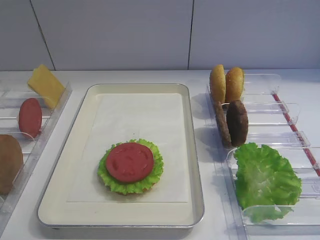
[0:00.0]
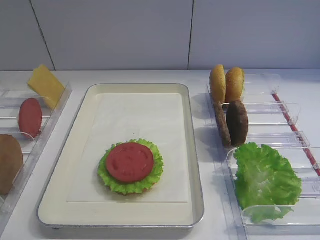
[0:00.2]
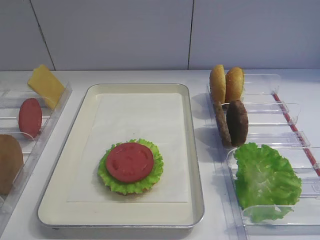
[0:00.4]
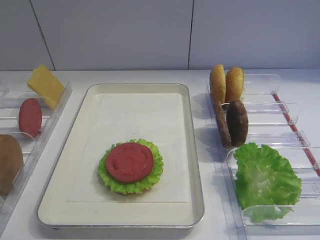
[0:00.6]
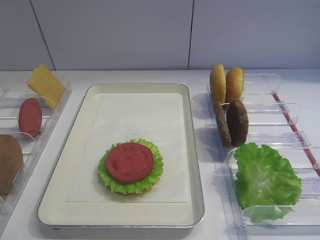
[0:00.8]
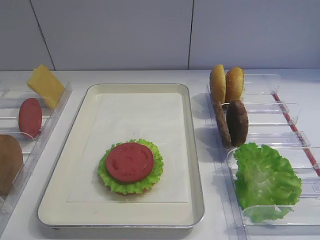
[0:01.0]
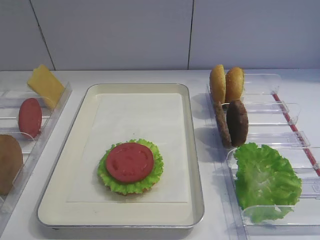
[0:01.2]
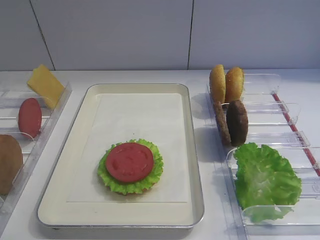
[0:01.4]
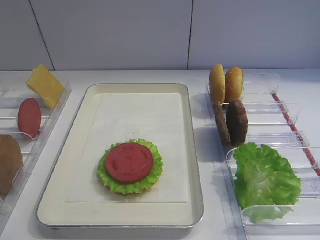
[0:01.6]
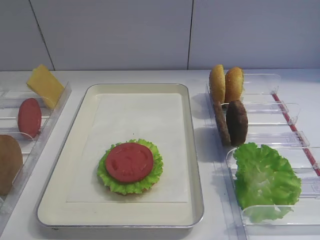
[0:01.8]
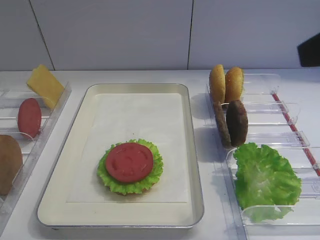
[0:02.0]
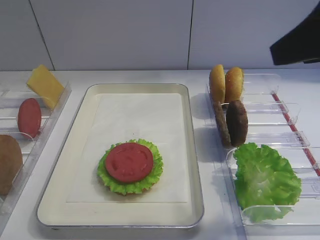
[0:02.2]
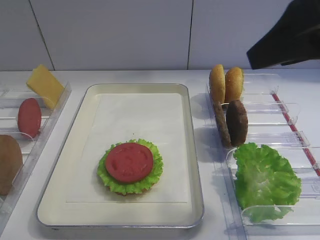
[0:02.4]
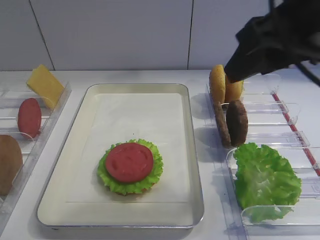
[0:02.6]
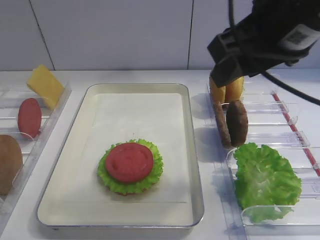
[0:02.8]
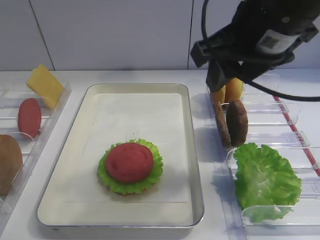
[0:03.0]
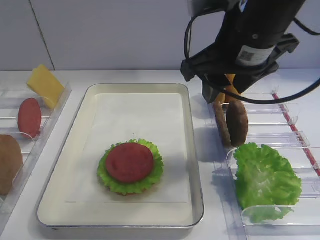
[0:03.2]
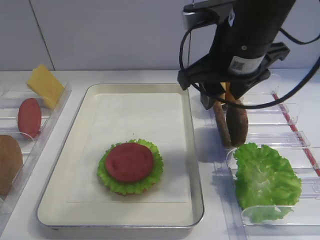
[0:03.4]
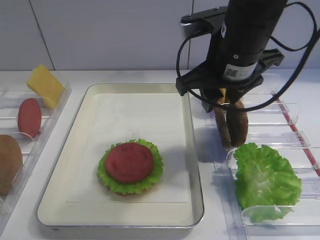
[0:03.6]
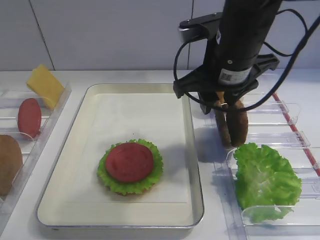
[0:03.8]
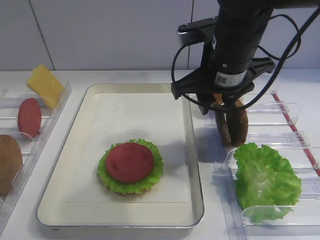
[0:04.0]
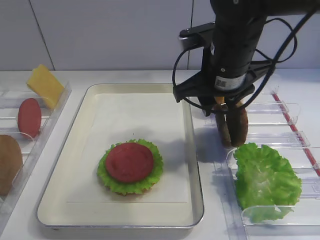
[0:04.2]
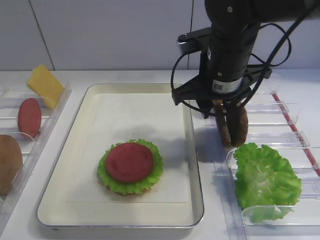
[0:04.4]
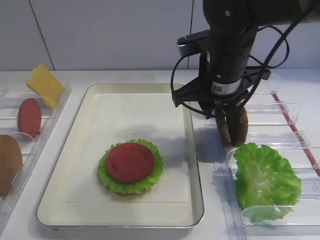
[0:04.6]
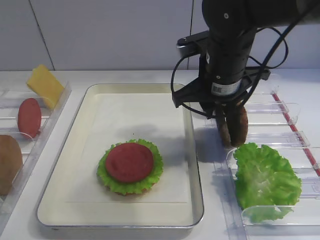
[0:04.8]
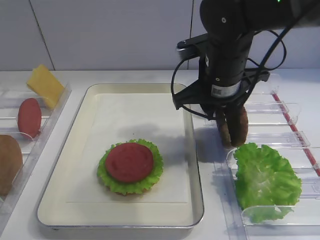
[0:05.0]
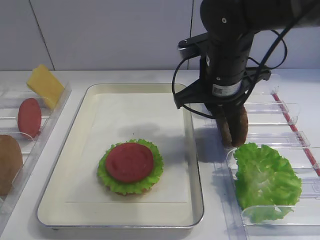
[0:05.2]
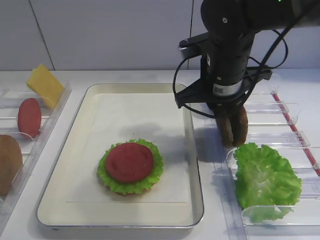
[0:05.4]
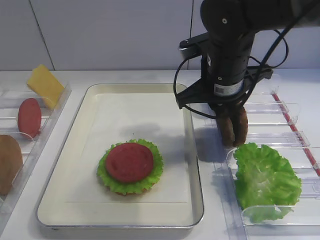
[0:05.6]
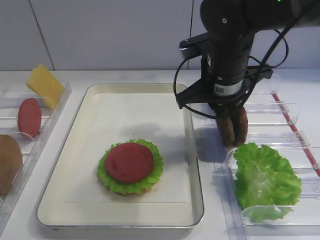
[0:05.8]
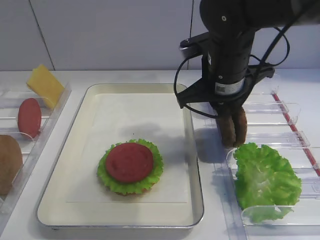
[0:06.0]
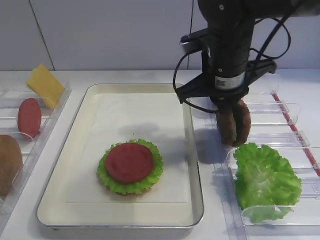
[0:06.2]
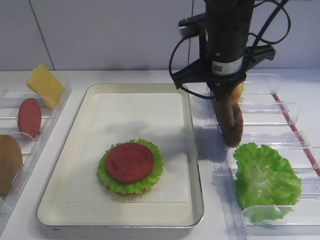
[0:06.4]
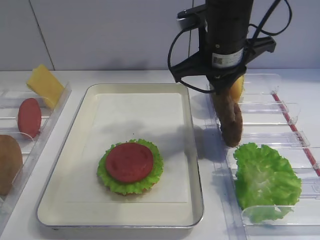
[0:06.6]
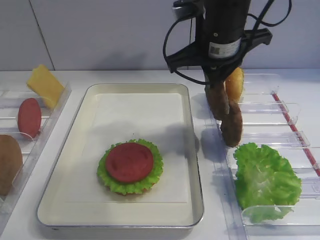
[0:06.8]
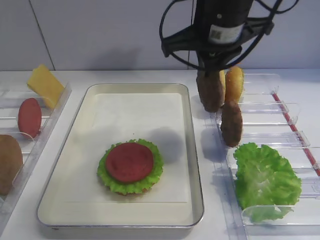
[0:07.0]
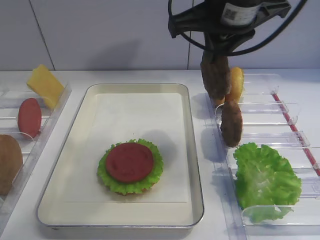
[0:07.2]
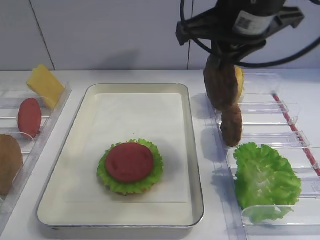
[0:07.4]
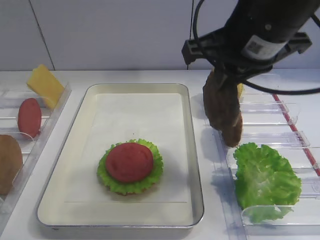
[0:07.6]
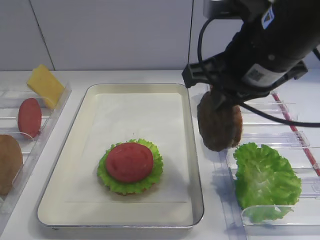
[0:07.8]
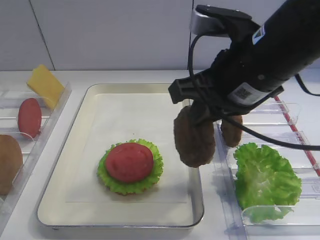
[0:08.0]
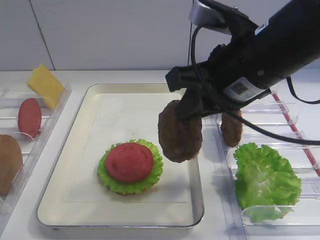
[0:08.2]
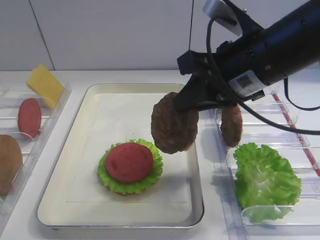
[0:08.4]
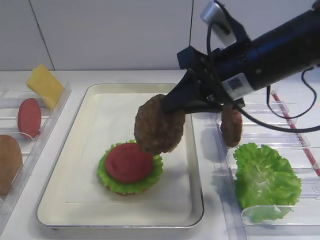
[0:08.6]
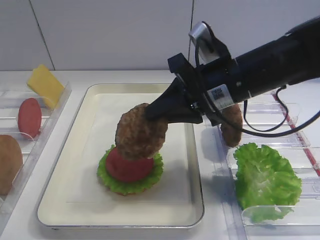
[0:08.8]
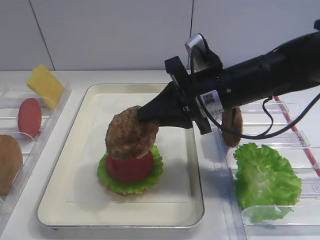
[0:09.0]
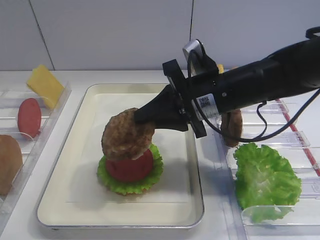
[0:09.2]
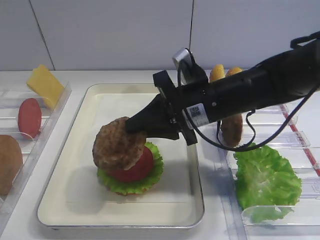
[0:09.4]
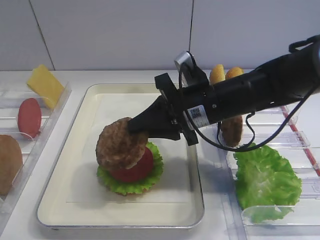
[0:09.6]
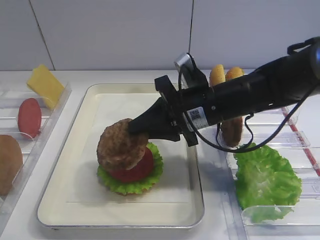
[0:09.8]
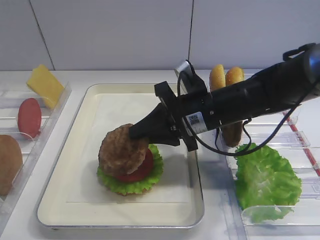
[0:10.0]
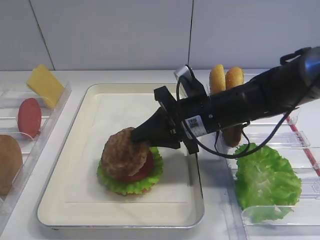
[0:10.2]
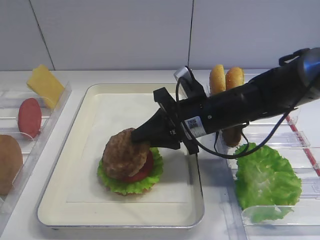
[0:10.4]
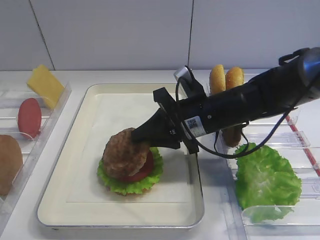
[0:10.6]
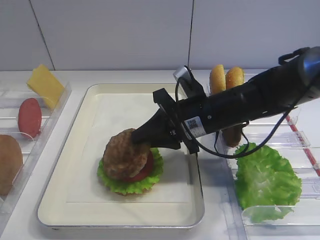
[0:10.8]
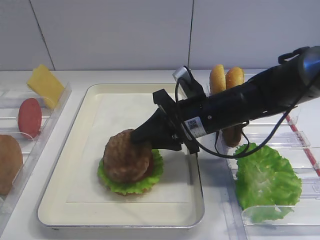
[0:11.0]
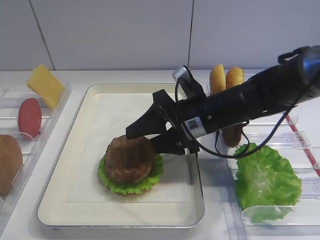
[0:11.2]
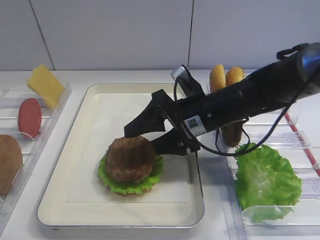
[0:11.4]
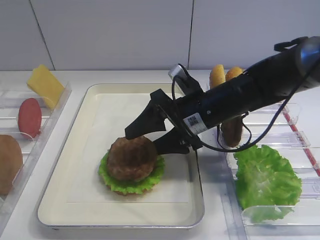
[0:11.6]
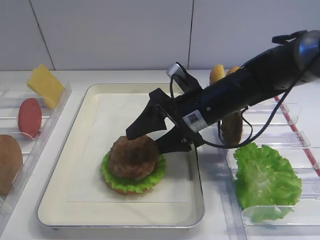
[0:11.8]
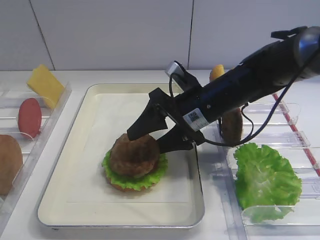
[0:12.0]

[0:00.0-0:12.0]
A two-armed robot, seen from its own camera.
Step, 0:00.0 to 0:06.2: Pick up the cutlet with the right gripper.
0:01.6 to 0:03.0: The right gripper goes about 25 cm forward and to the left.
0:03.0 to 0:04.4: The right gripper shifts about 15 cm downward and forward.
0:04.4 to 0:06.0: The right gripper closes up.
0:06.0 to 0:07.6: The right gripper travels upward and backward by about 10 cm.
0:07.6 to 0:09.0: The right gripper travels downward by roughly 10 cm.
0:09.0 to 0:10.4: The right gripper travels downward by roughly 5 cm.
0:10.4 to 0:12.0: The right gripper opens.

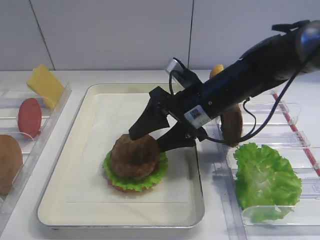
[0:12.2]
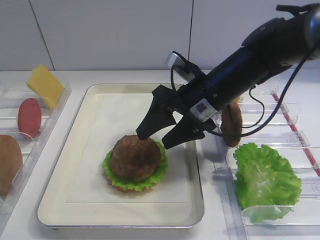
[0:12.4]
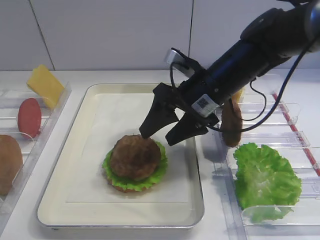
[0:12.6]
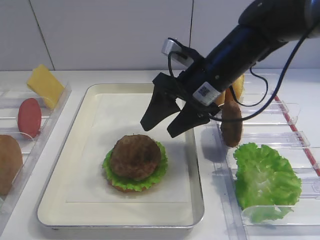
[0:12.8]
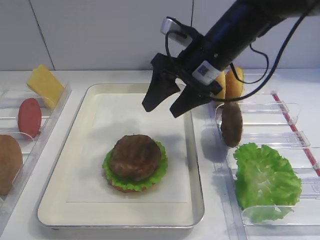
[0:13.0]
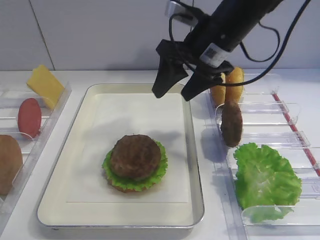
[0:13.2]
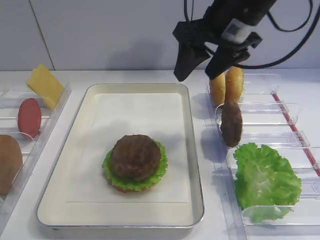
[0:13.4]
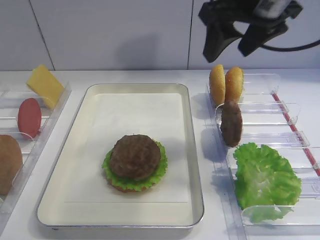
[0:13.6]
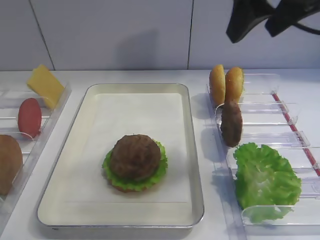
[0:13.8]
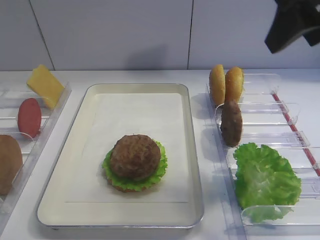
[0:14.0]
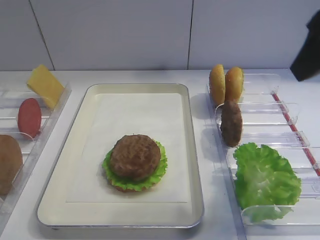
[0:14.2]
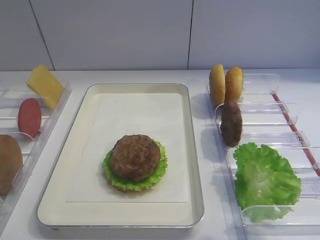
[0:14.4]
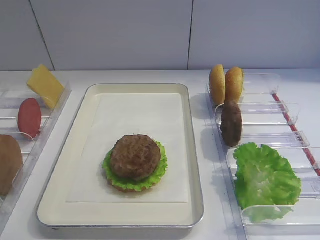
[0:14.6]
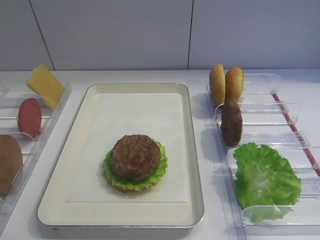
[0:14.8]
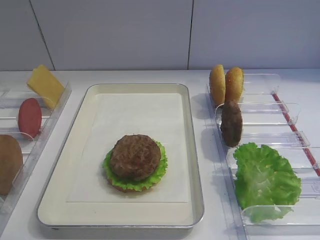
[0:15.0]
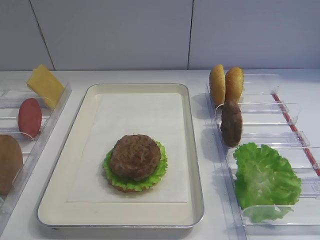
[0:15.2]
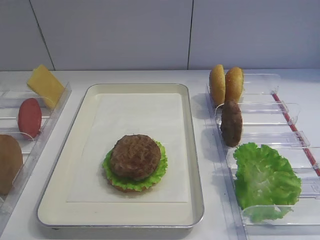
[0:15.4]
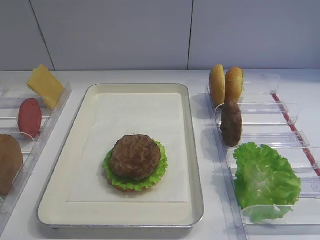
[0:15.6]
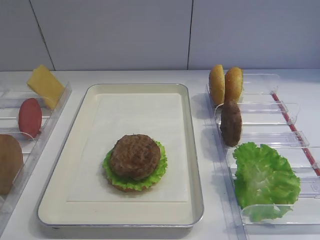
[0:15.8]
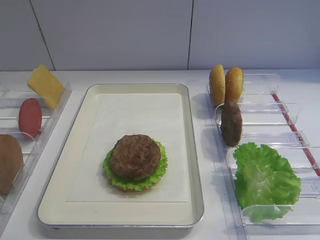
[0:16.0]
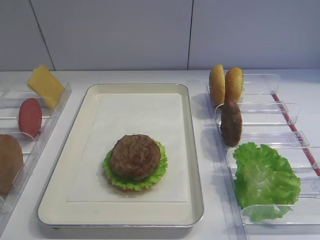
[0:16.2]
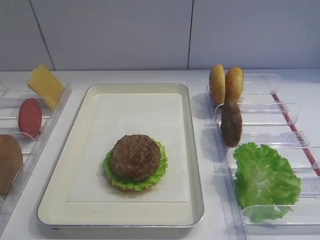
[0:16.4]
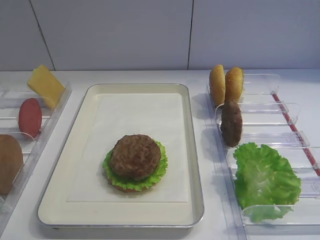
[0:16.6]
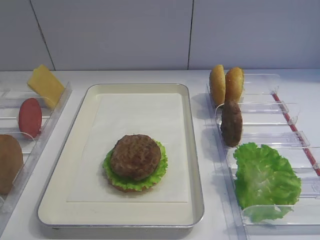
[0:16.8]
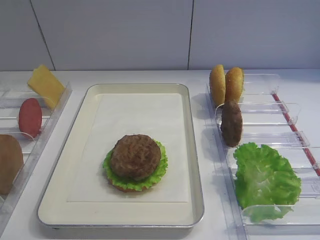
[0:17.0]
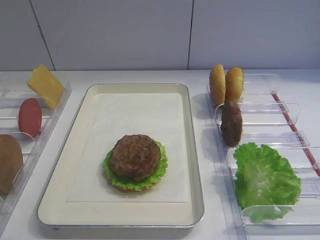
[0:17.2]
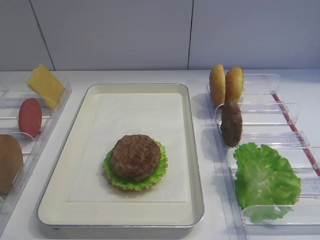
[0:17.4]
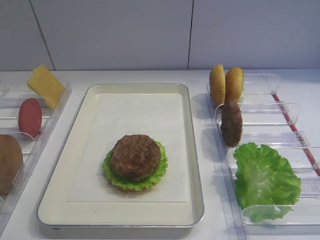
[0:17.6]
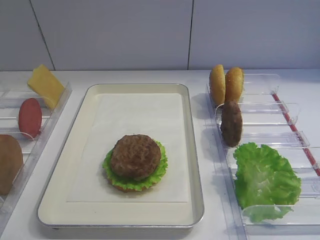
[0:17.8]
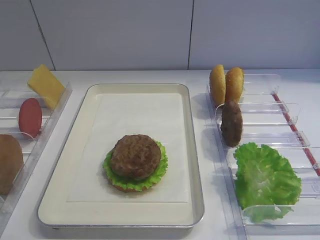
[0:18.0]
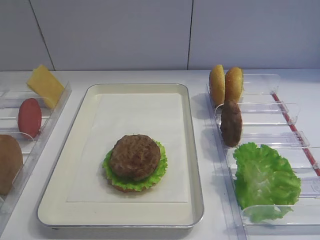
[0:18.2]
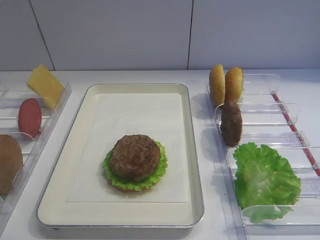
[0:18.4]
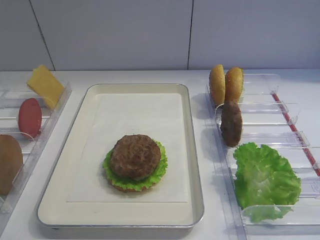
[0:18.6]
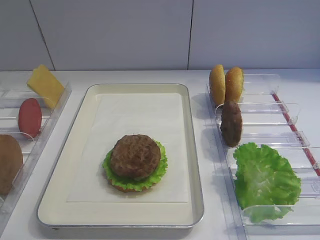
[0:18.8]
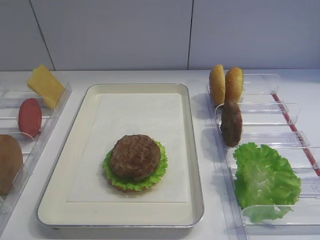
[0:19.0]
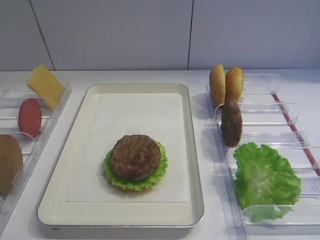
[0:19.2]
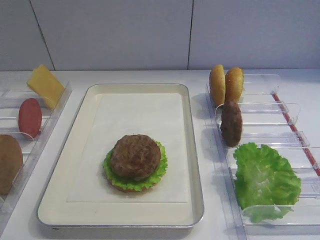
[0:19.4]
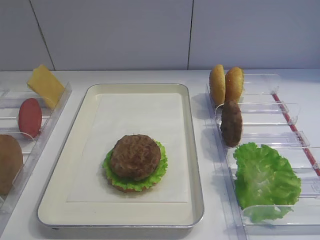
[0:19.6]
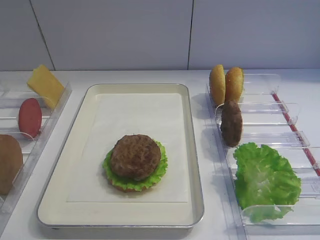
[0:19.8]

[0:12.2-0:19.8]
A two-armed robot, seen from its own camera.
0:12.2 to 0:13.8: The right gripper heads upward, covering some 20 cm.
0:13.8 to 0:15.2: The right gripper shifts some 25 cm backward and to the right, and closes.
0:16.8 to 0:19.8: Both grippers stay about where they are.

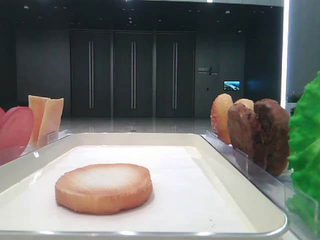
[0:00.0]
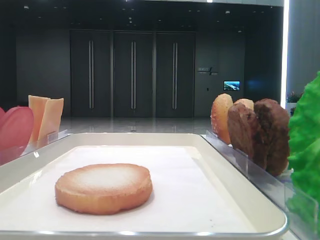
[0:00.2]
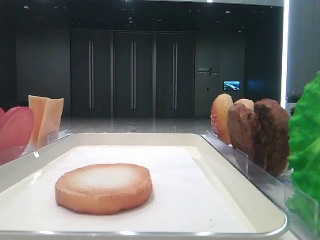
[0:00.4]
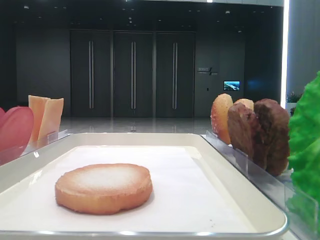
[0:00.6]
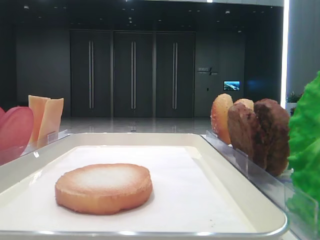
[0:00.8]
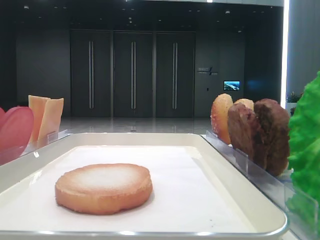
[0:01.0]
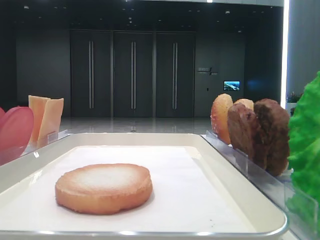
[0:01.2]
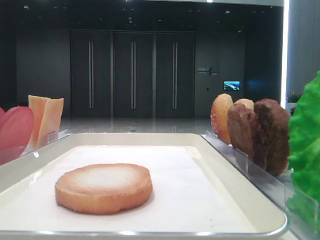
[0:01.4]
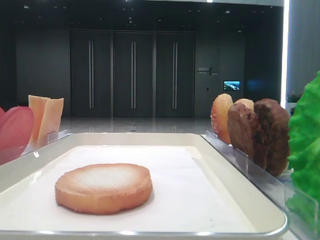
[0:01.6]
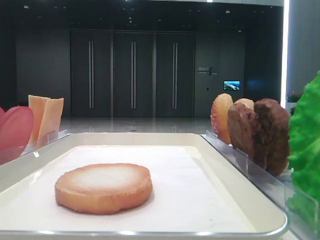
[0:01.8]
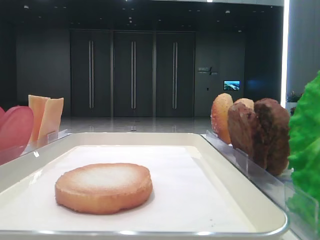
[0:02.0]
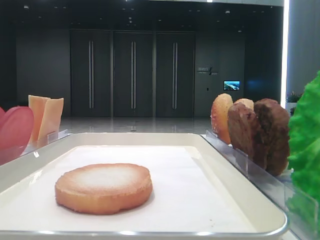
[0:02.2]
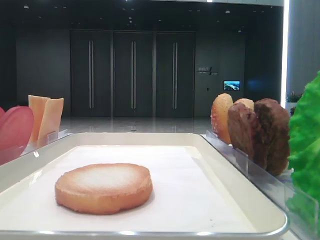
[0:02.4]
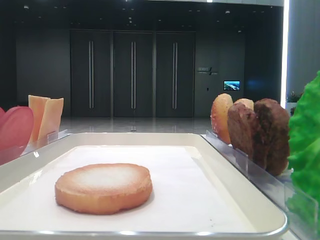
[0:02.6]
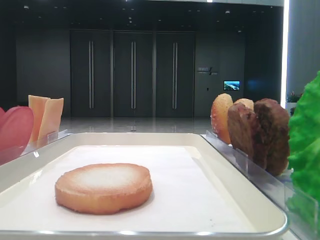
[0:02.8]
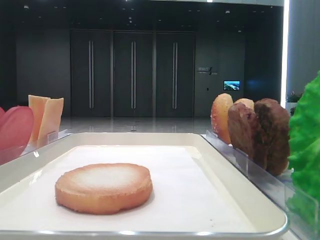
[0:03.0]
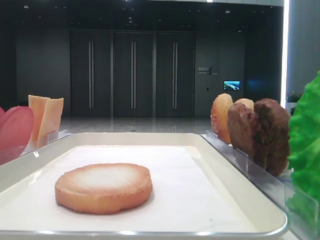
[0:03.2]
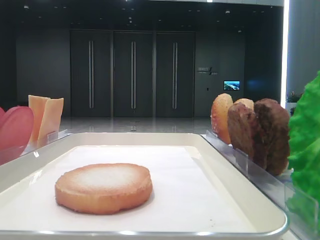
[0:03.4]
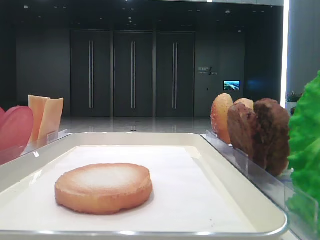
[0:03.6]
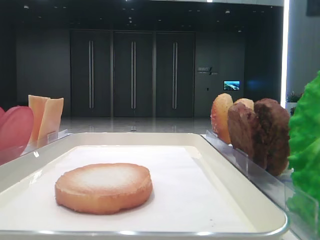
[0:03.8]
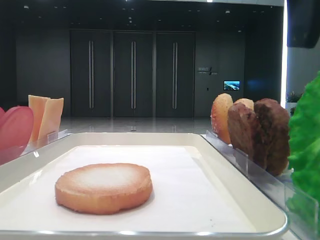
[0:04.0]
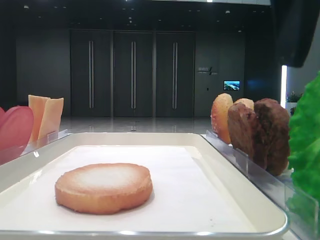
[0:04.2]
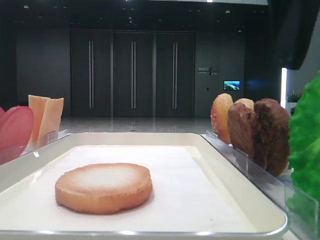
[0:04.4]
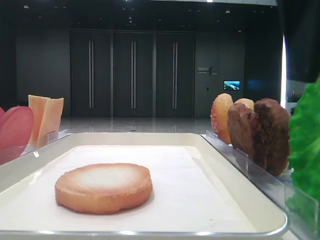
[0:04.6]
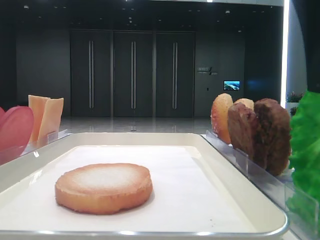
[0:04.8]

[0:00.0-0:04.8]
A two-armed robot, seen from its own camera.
0:03.2 to 0:04.8: The right gripper goes roughly 5 cm downward.
